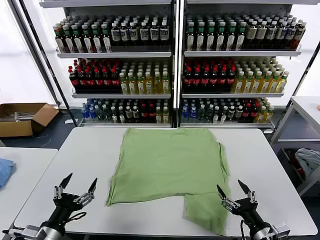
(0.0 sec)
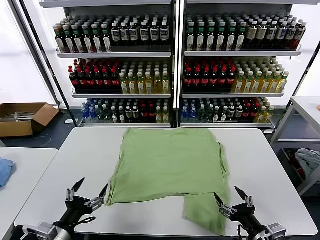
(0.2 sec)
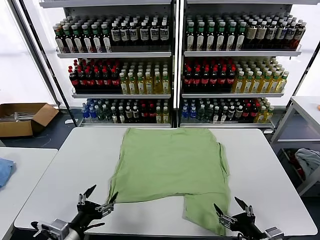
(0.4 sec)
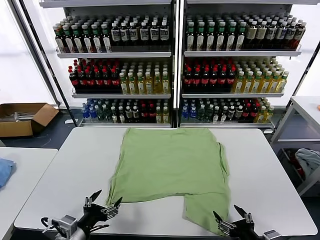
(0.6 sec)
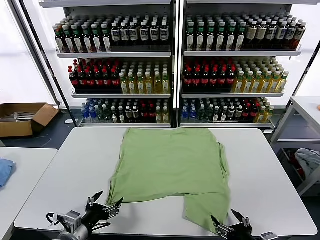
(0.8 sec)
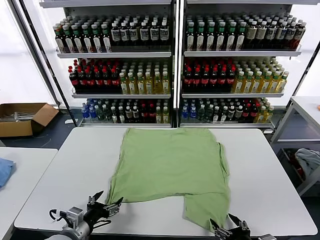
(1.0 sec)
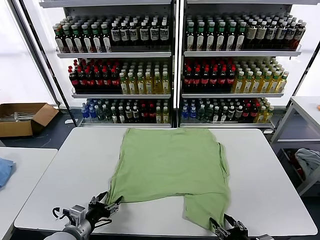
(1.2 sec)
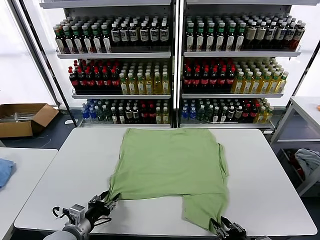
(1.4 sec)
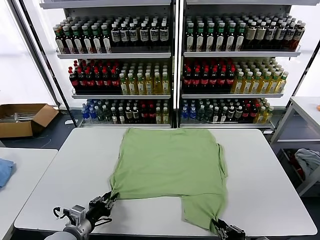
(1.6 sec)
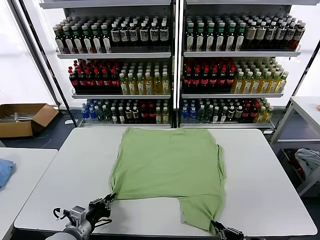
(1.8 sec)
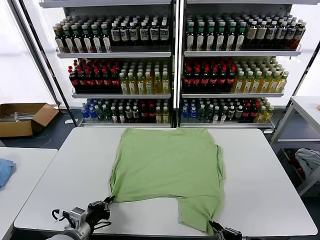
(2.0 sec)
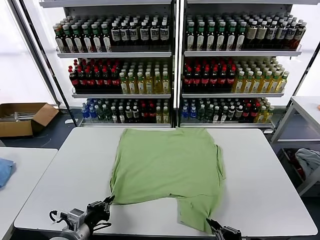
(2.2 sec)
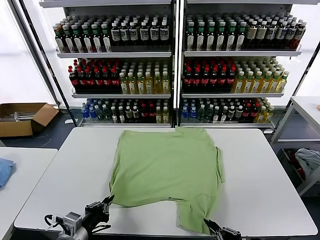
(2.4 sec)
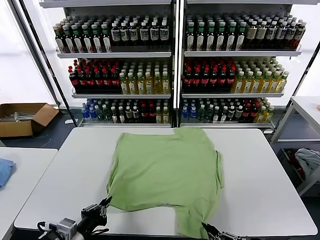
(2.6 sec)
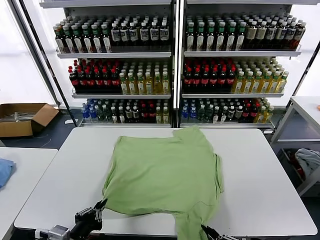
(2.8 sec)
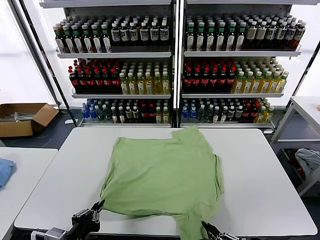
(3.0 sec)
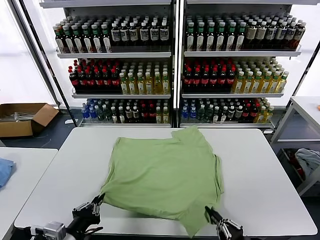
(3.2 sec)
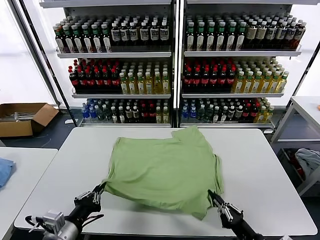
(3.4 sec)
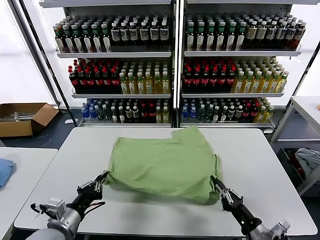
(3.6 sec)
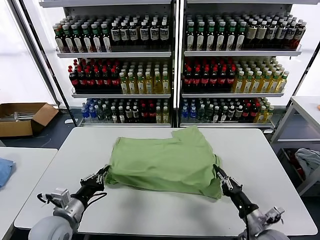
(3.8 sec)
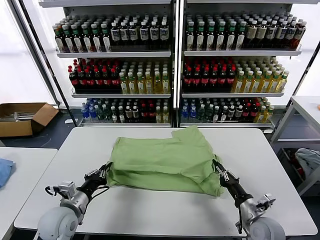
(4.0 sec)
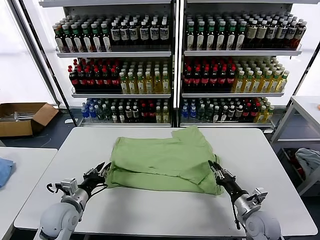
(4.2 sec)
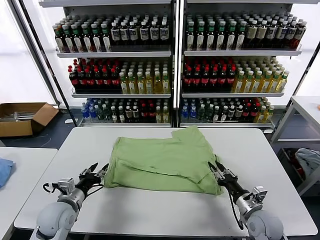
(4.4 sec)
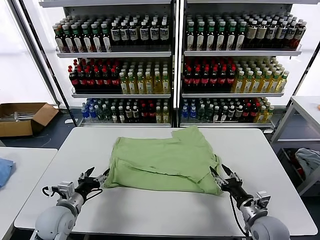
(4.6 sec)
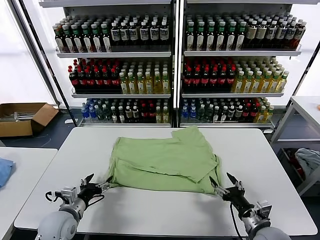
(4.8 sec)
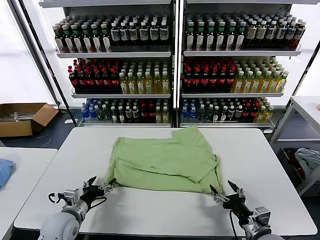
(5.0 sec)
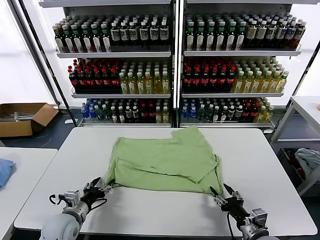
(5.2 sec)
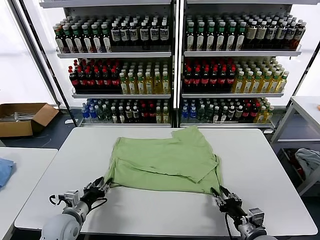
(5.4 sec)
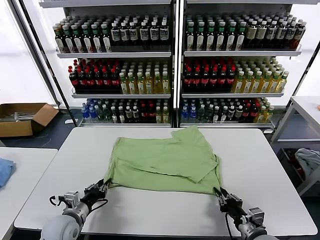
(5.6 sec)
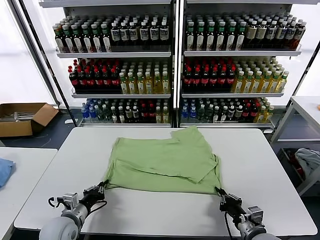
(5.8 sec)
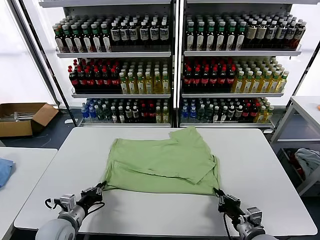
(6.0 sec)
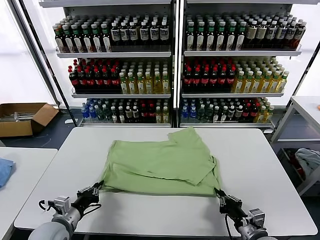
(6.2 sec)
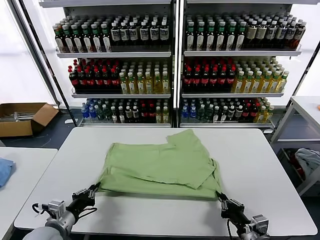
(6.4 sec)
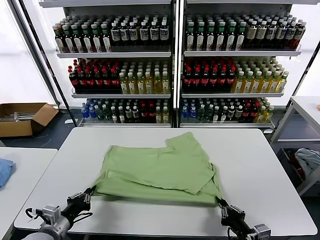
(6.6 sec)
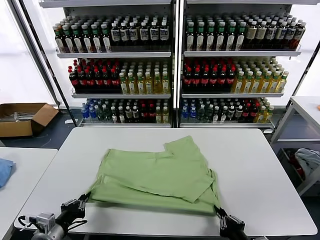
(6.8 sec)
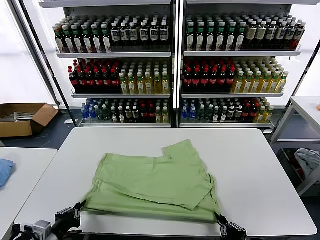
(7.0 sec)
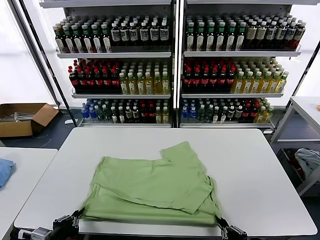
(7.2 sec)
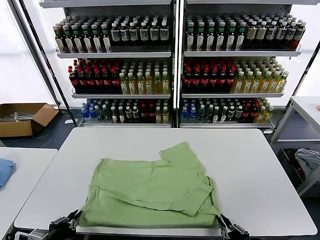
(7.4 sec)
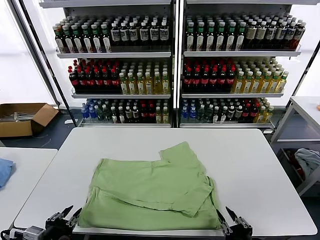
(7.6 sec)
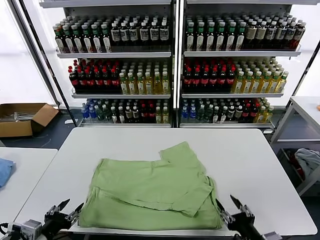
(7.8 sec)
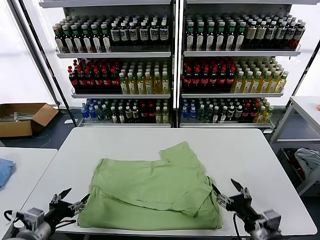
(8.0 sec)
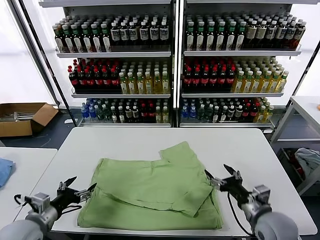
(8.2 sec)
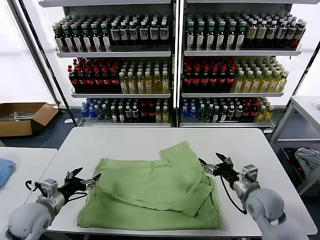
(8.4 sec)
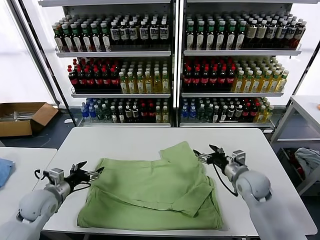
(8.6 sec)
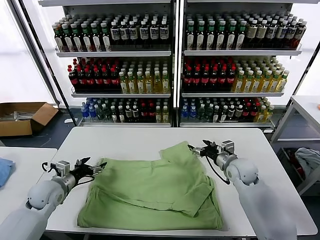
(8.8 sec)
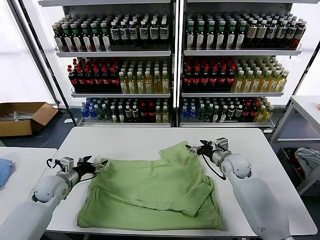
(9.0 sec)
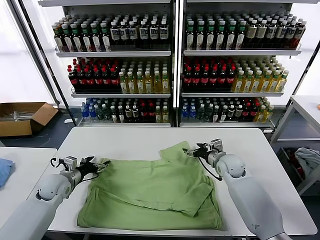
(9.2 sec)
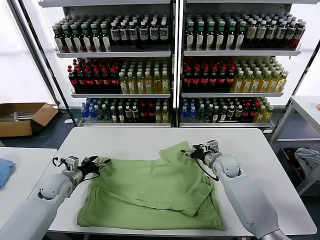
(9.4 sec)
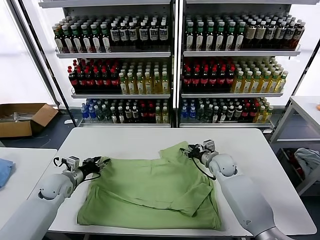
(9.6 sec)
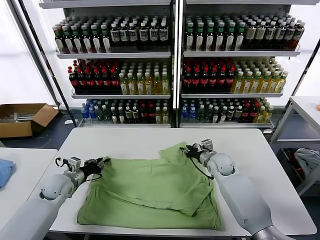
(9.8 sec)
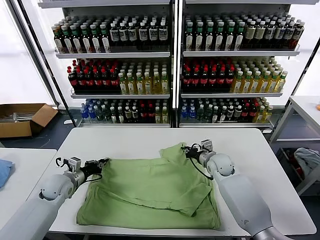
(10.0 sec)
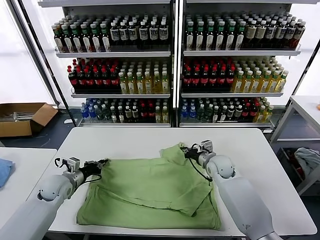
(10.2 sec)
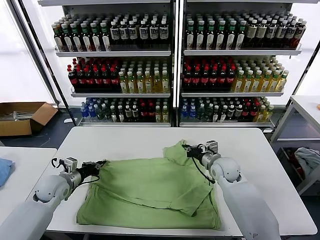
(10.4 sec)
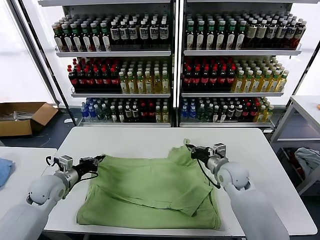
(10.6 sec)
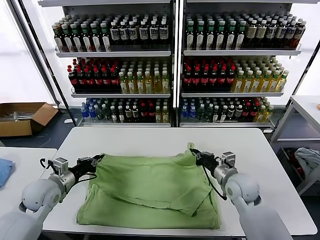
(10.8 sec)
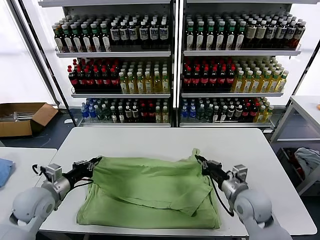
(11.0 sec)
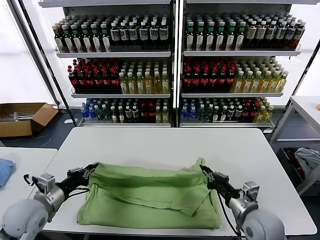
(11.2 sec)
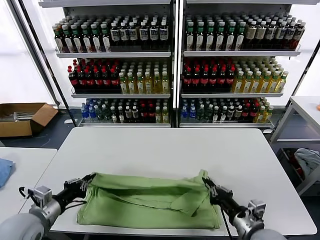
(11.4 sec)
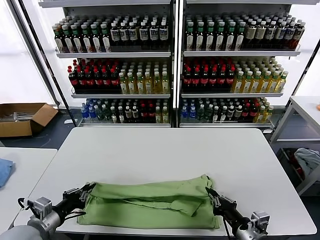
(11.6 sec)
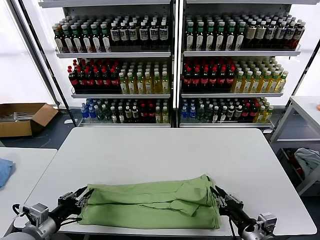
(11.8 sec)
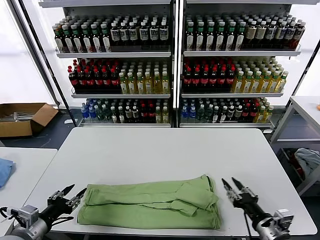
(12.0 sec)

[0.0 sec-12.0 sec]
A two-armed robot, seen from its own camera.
Task of the whole recording: fold and organize the clothes.
Step, 0.0 sec to 1.8 sec: use both grippers simultaneously to clamp the lower edge of the clothing fabric.
Step, 2.2 sec to 4.4 sec: use both grippers to drag the lower edge of the fabric forward and fold it over the upper edge.
Step, 4.6 sec to 7.6 sec: Drag the clothes downward with both gripper.
Step, 7.8 sec to 10.0 sec: use both grippers simultaneously to clamp the upper edge of the clothing fabric.
Step, 10.2 sec to 11.8 sec: use both grippers to drag the upper edge of the fabric backward and fold it over the lower edge.
1.6 sec to 3.0 sec: The left gripper shifts roughly 10 cm backward and upward.
3.0 sec to 4.4 sec: The two grippers go roughly 15 cm forward. The left gripper opens up. The right gripper opens up.
4.4 sec to 6.0 sec: The left gripper closes. The right gripper shifts approximately 5 cm backward, and closes up.
6.0 sec to 7.6 sec: Both grippers move backward and upward, some 10 cm. The right gripper opens; the left gripper opens up.
7.6 sec to 9.0 sec: Both grippers move forward, approximately 30 cm. The right gripper opens; the left gripper opens its fingers.
9.0 sec to 10.4 sec: The right gripper closes up. The left gripper closes up.
10.4 sec to 12.0 sec: The grippers both shift backward by some 25 cm. The right gripper opens up. Meanwhile the left gripper opens.

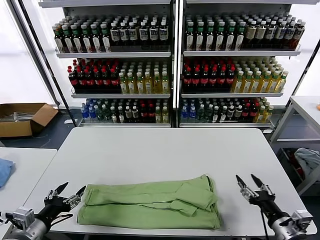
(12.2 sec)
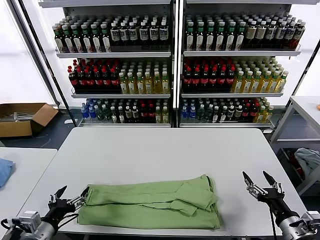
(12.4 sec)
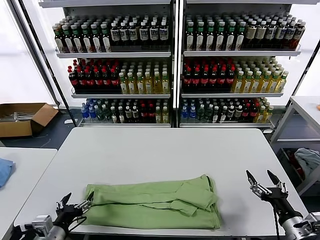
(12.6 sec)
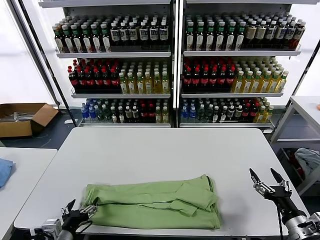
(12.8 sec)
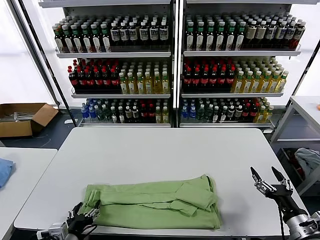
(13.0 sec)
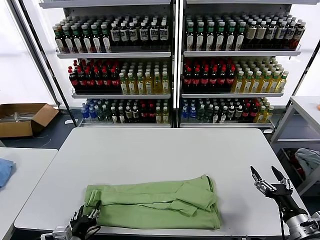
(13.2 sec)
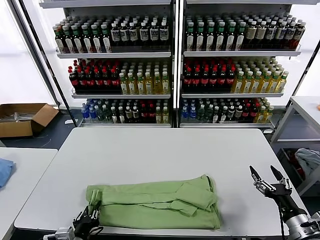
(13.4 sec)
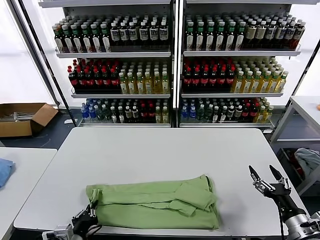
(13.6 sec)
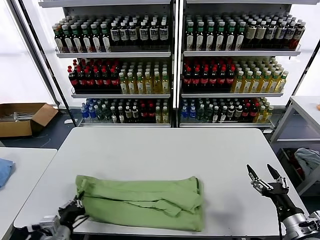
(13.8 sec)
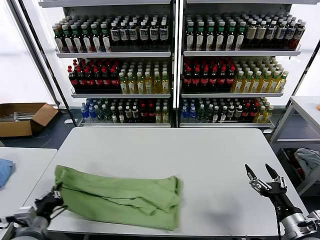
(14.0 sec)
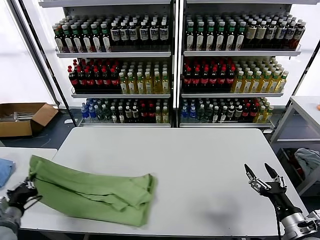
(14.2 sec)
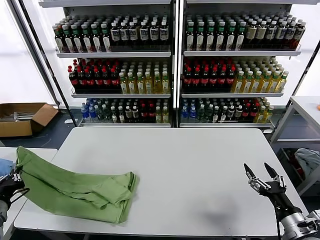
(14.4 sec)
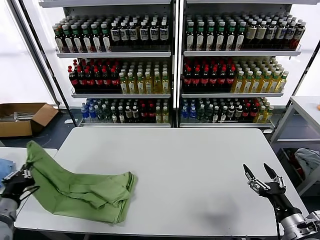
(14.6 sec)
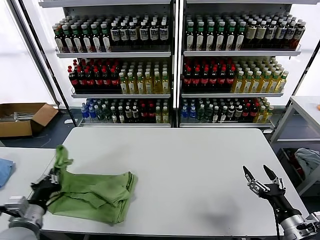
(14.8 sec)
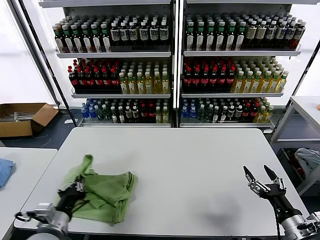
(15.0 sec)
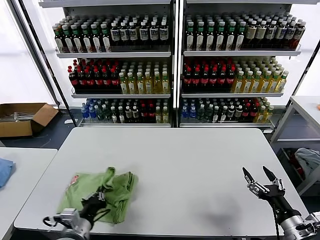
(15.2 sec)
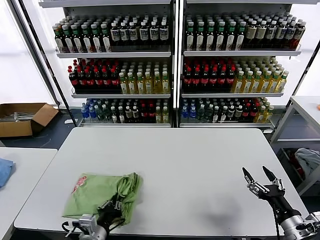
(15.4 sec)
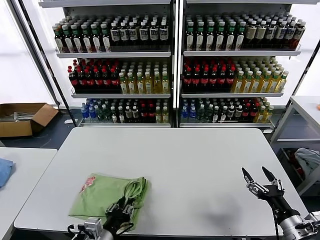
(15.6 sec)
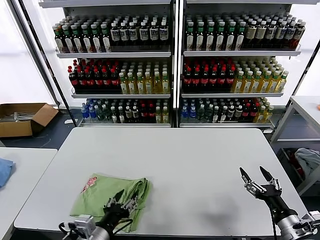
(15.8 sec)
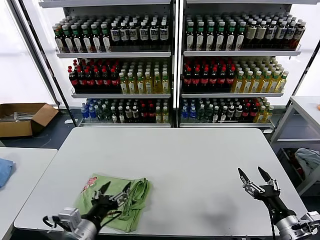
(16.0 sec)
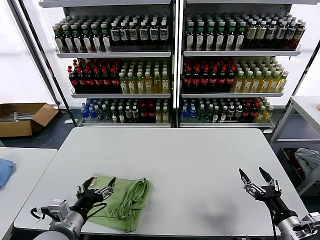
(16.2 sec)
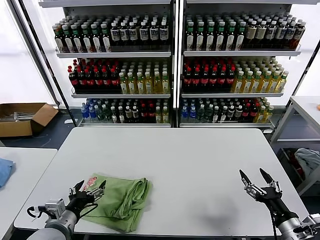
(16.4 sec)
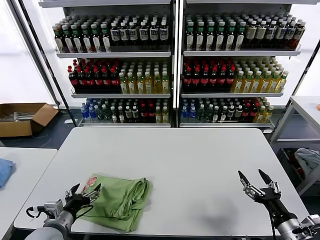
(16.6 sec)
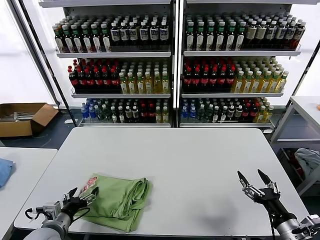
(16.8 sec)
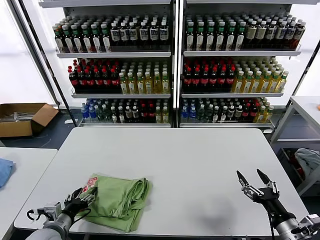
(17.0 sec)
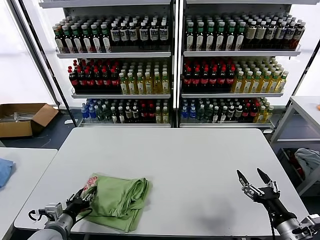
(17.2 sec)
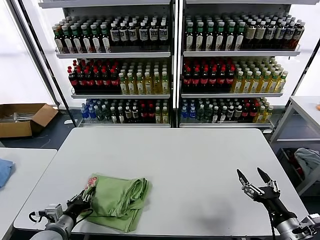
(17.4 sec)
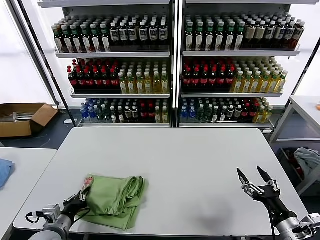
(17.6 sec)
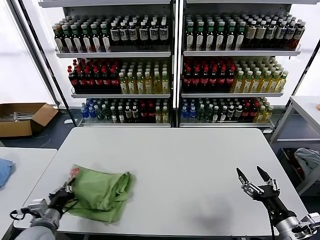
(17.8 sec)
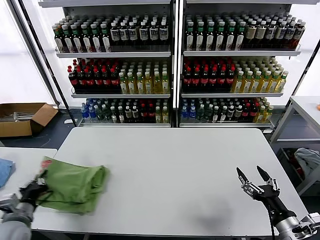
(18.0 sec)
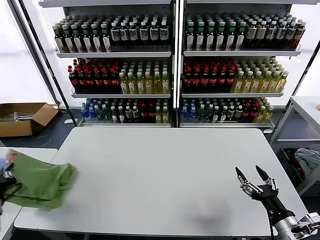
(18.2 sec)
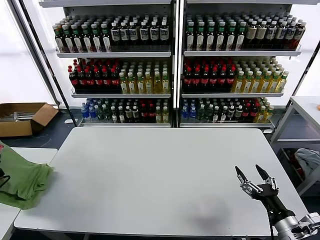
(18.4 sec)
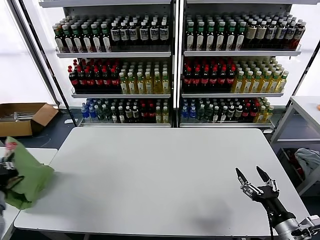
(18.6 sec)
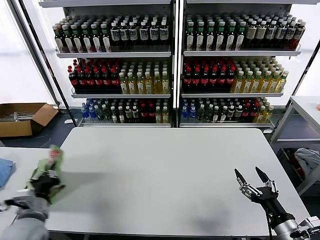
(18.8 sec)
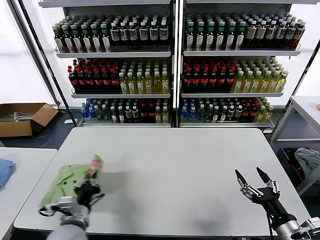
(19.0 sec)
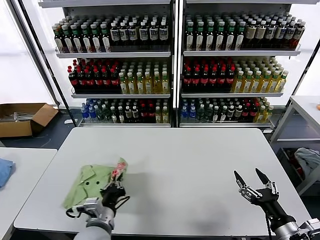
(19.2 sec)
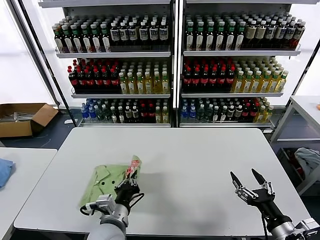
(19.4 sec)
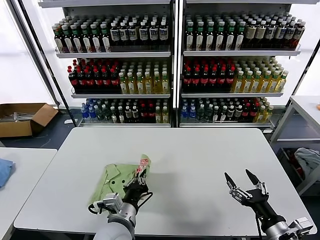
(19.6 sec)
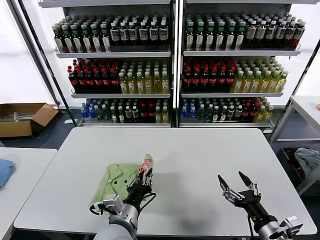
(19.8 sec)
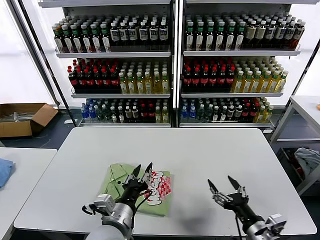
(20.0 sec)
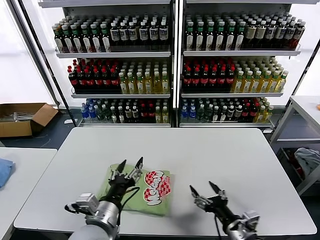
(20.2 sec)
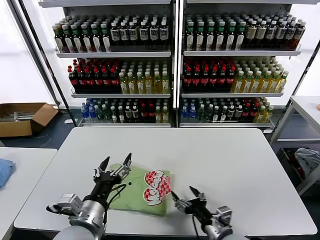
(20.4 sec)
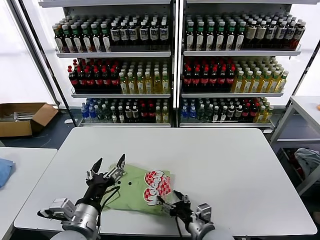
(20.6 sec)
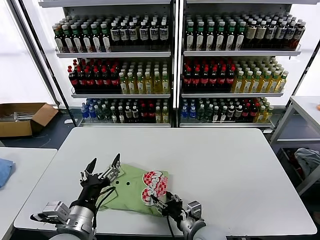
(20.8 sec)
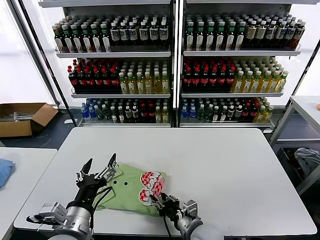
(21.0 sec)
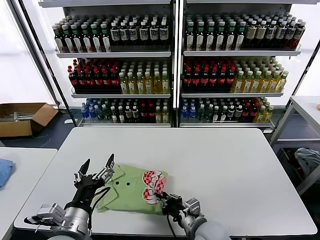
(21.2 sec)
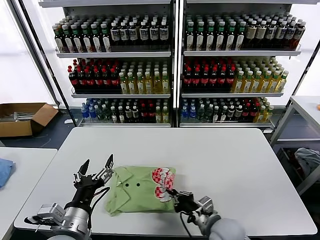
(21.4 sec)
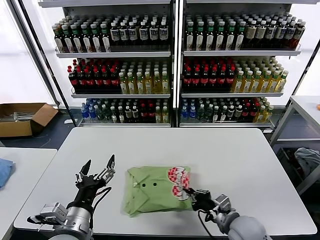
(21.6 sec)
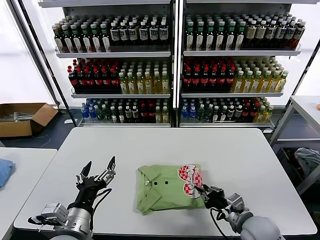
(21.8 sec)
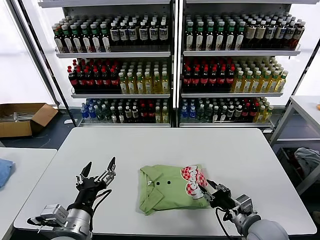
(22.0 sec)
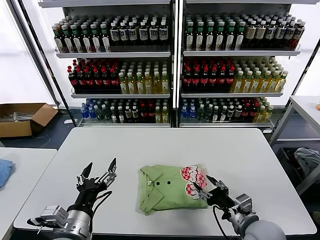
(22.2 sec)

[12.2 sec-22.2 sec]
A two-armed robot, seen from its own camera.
Task of the whole recording: fold and organize the clothes.
Step, 12.2 sec to 13.4 sec: use the left gripper to clamp the left edge of the fabric.
Step, 13.6 sec to 15.8 sec: use the left gripper to drag the left edge of the fabric to the left and folds it over the right edge.
Step, 16.0 sec to 20.0 sec: Flip the folded clothes over with left gripper.
12.2 sec to 13.6 sec: The left gripper travels to the right and downward by roughly 15 cm, and closes up.
13.6 sec to 15.0 sec: The left gripper moves upward, roughly 5 cm, and travels to the left and back again, roughly 20 cm each way.
15.0 sec to 16.4 sec: The left gripper travels to the right and back again, approximately 10 cm each way, and opens up.
16.4 sec to 18.0 sec: The left gripper travels to the left by roughly 10 cm, and closes its fingers.
18.0 sec to 19.4 sec: The left gripper travels to the right by about 25 cm.
19.4 sec to 20.8 sec: The left gripper moves upward and to the left, about 10 cm, and opens. The right gripper travels to the left by about 20 cm.
20.8 sec to 22.2 sec: The right gripper moves to the right and upward, approximately 15 cm, and closes, then reopens.
